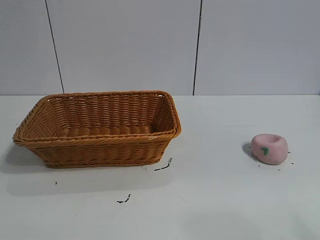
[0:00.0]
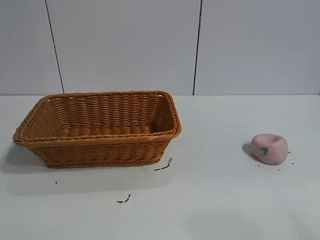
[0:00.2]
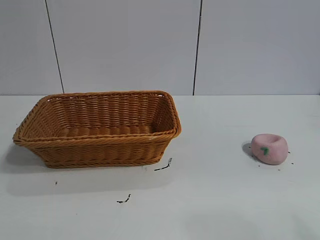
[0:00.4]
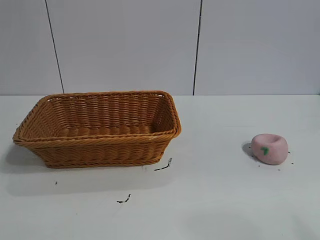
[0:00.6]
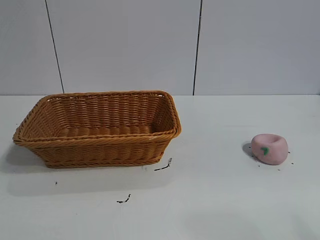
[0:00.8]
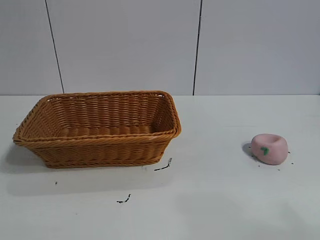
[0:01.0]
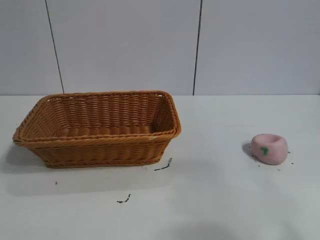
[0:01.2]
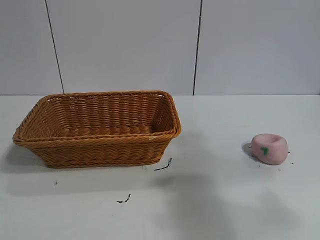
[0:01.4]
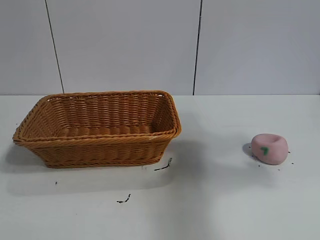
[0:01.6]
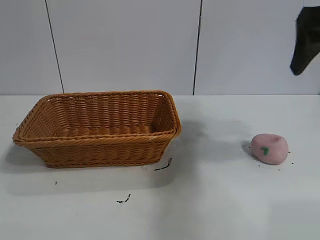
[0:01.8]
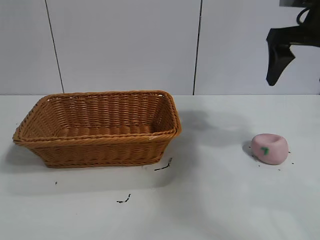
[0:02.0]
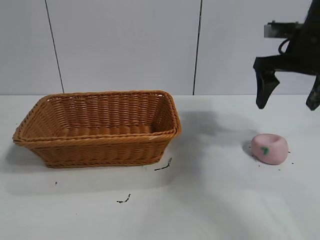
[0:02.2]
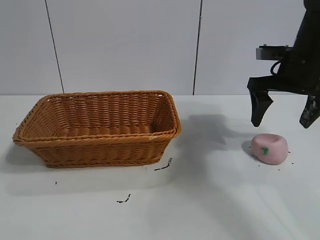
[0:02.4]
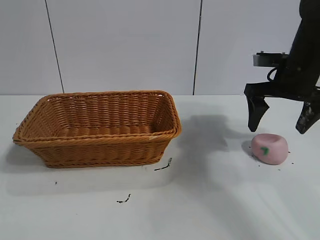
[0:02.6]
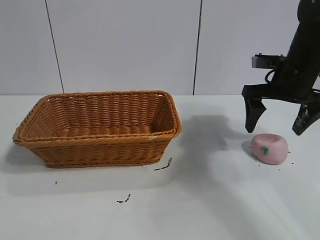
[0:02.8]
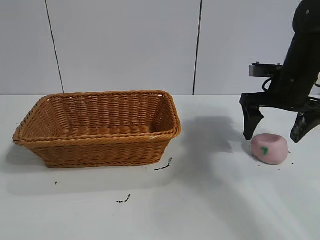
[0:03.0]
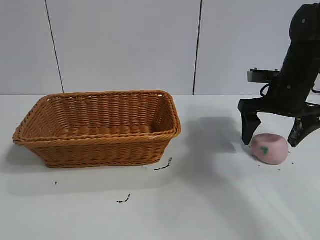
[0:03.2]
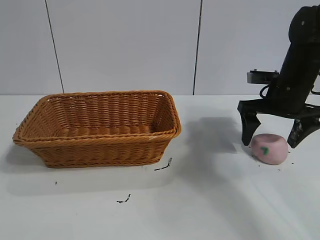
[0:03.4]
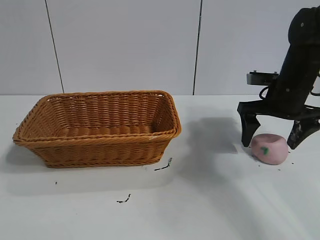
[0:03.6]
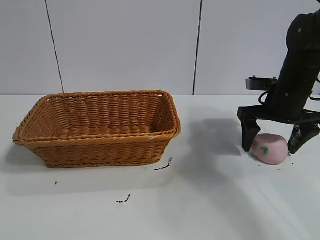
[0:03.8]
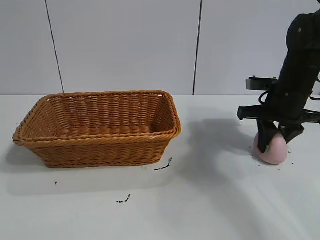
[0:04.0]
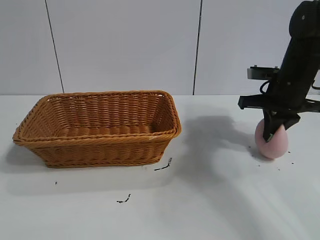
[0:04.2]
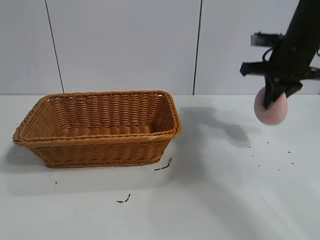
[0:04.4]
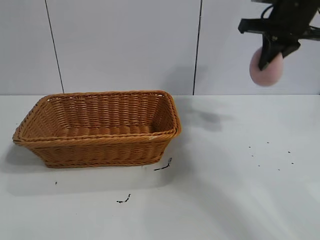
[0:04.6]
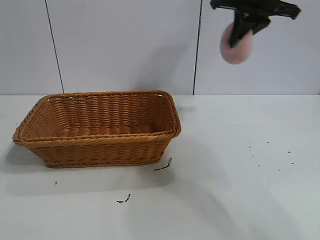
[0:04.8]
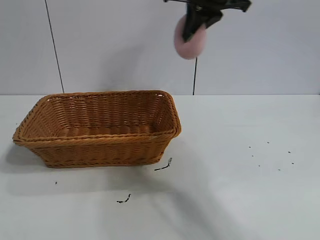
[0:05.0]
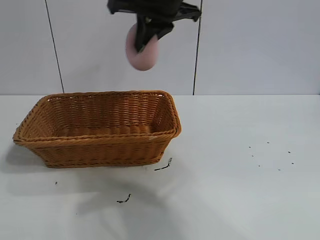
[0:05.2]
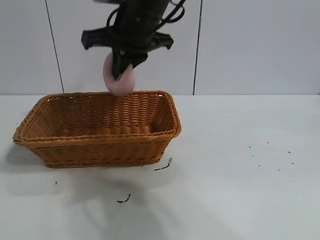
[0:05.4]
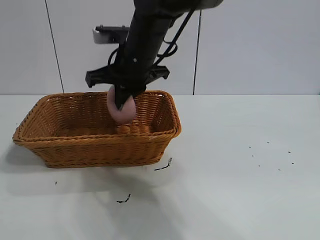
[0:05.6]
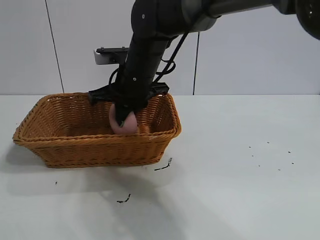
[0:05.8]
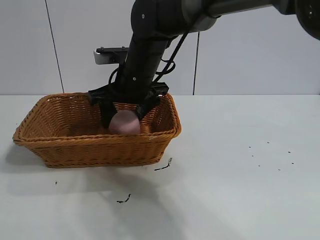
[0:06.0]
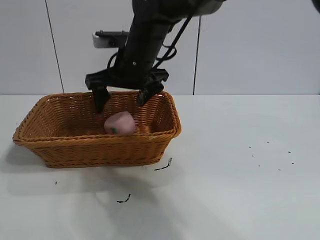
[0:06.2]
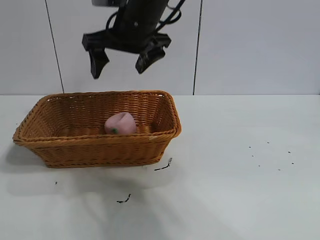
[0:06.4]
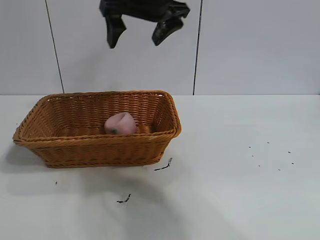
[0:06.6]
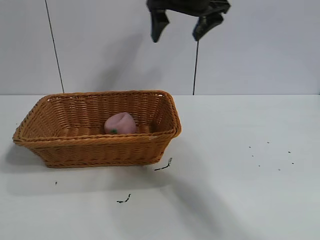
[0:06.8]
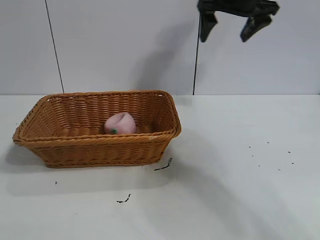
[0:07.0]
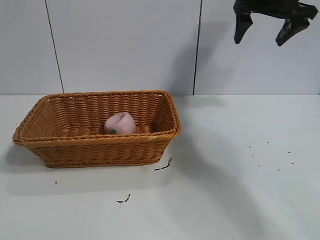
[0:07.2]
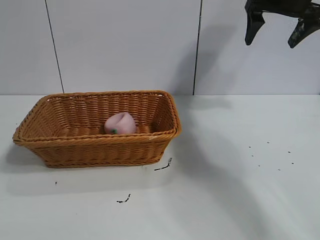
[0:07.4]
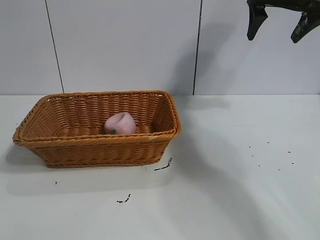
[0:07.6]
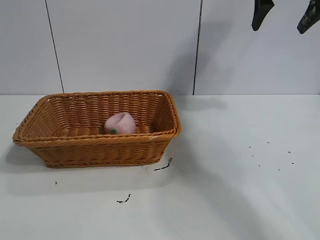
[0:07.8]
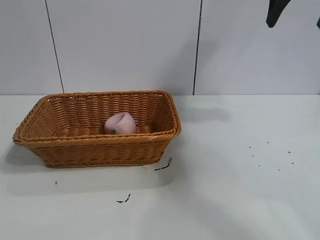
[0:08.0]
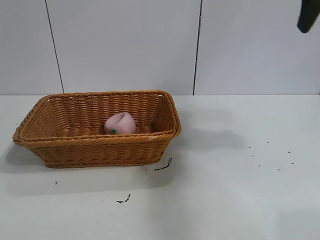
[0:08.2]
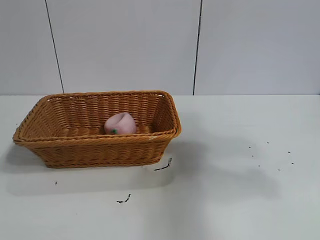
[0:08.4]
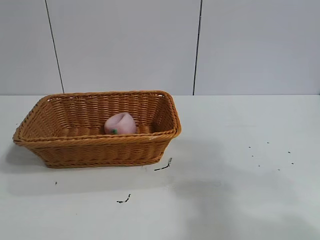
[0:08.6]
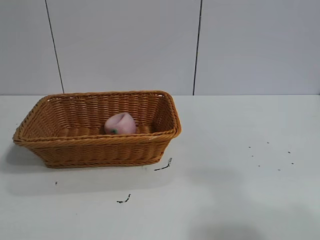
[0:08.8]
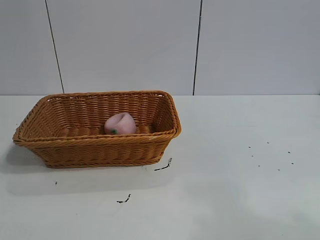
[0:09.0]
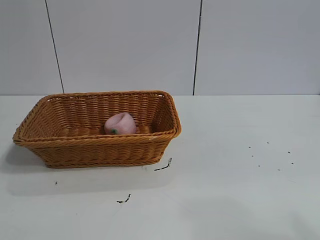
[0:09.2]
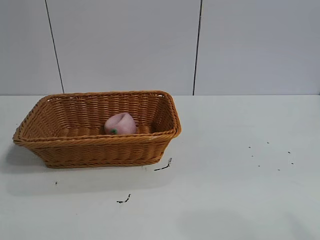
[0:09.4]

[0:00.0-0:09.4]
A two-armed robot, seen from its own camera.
Task of the whole recording: pick up the peach and put it into the basket.
Step, 0:00.8 to 0:04.0: Grasp the peach with right gripper.
Step, 0:04.2 to 0:06.0: Place the peach in the basket with right gripper.
